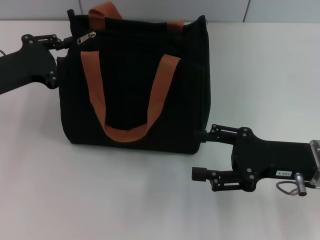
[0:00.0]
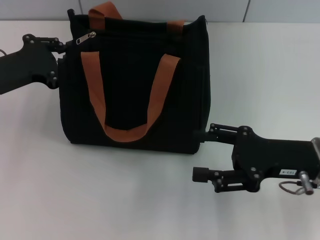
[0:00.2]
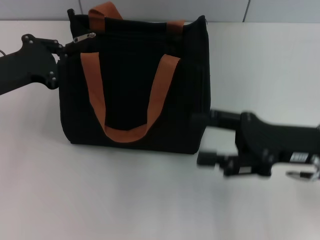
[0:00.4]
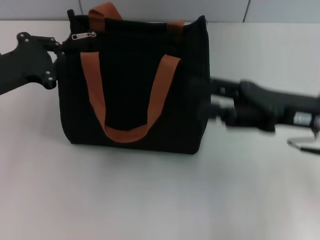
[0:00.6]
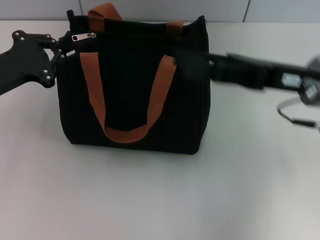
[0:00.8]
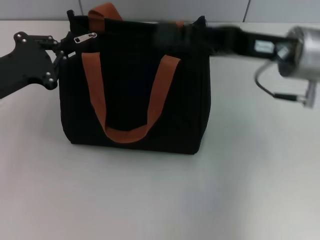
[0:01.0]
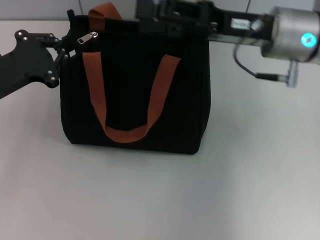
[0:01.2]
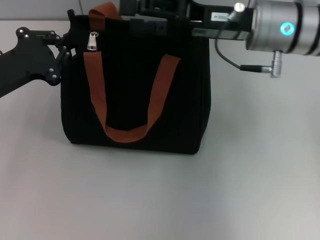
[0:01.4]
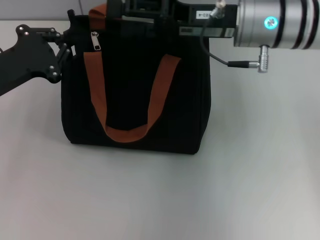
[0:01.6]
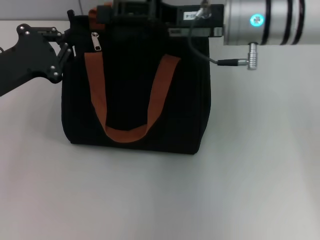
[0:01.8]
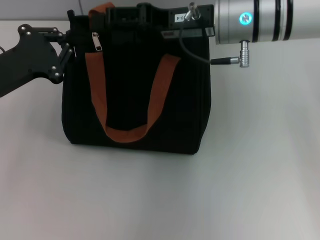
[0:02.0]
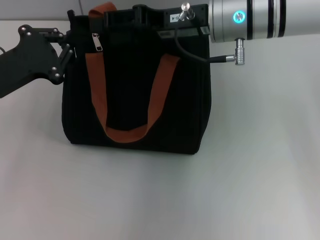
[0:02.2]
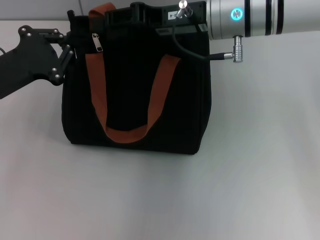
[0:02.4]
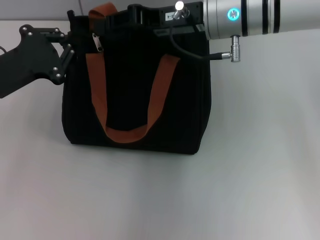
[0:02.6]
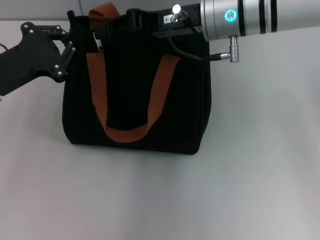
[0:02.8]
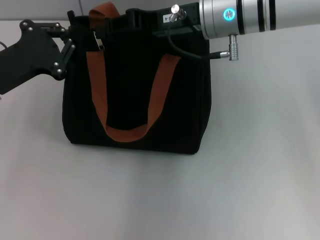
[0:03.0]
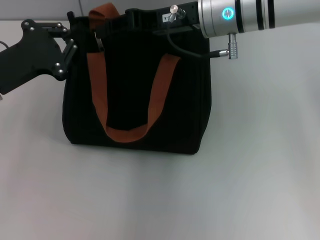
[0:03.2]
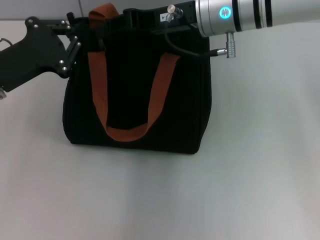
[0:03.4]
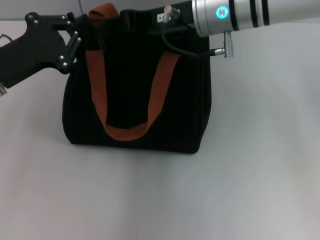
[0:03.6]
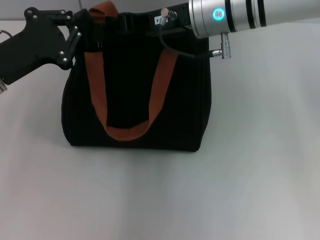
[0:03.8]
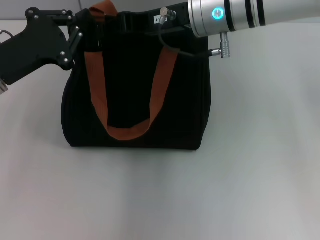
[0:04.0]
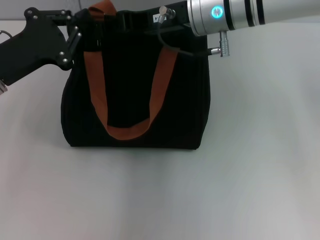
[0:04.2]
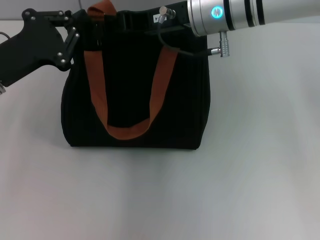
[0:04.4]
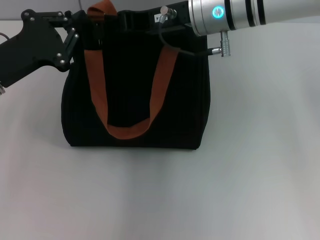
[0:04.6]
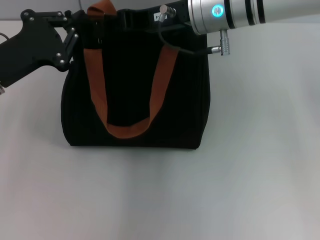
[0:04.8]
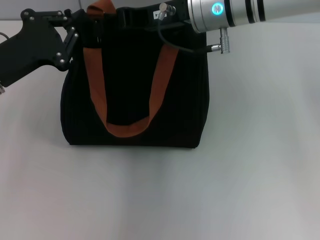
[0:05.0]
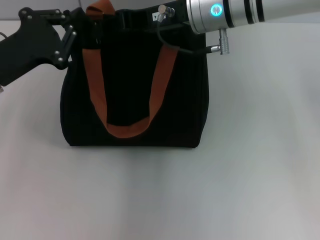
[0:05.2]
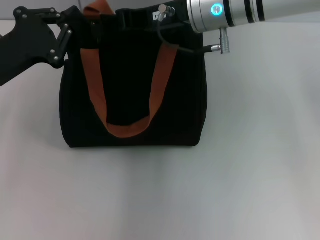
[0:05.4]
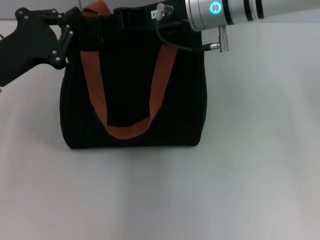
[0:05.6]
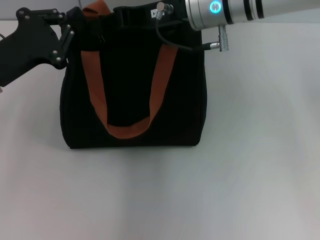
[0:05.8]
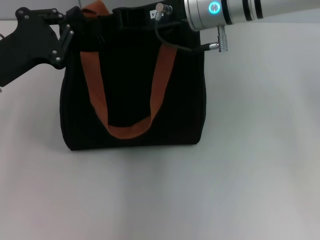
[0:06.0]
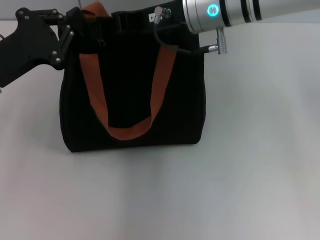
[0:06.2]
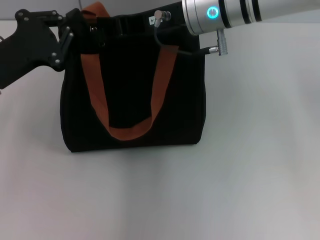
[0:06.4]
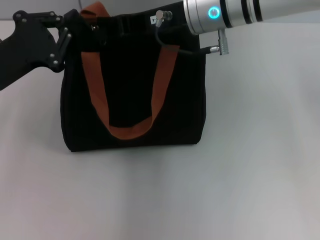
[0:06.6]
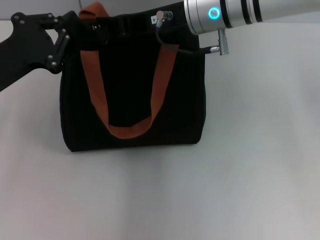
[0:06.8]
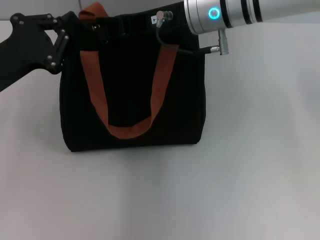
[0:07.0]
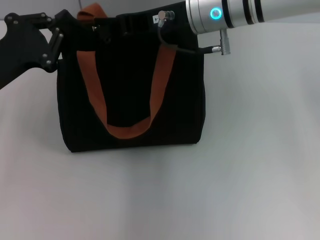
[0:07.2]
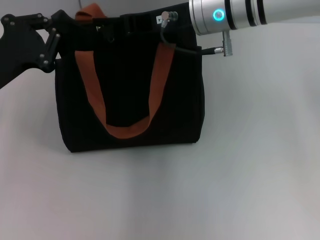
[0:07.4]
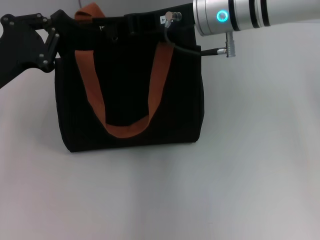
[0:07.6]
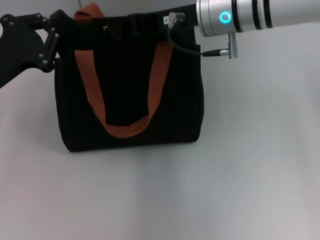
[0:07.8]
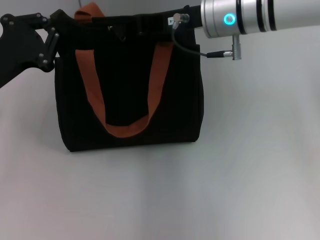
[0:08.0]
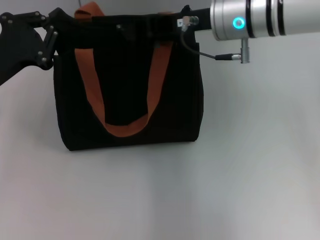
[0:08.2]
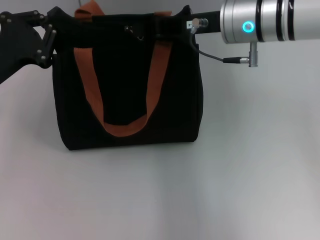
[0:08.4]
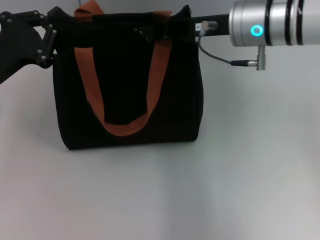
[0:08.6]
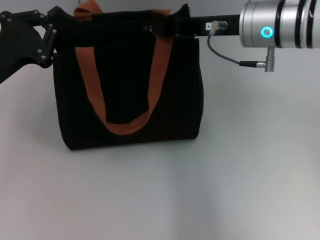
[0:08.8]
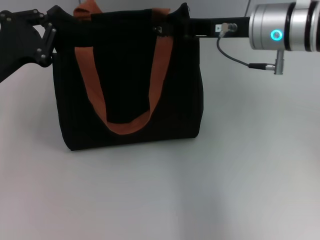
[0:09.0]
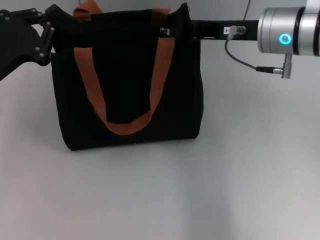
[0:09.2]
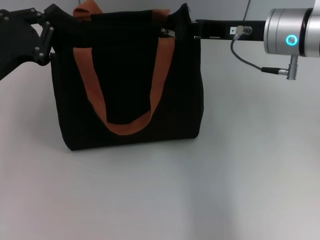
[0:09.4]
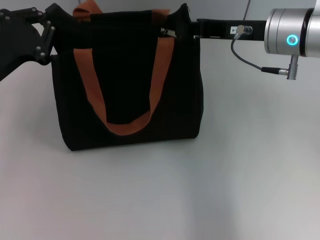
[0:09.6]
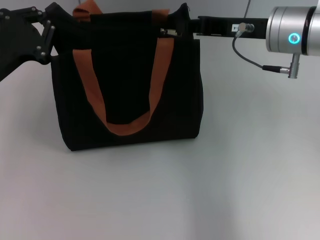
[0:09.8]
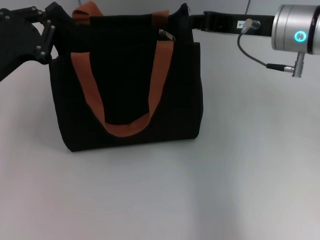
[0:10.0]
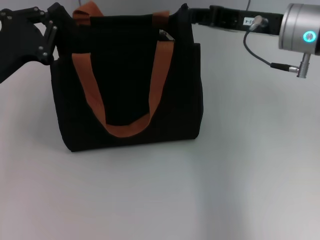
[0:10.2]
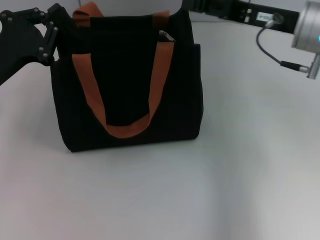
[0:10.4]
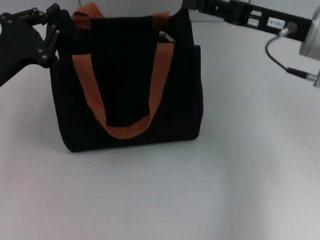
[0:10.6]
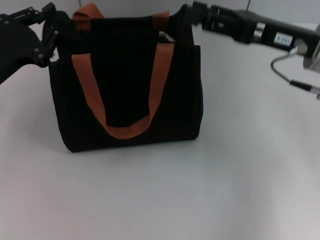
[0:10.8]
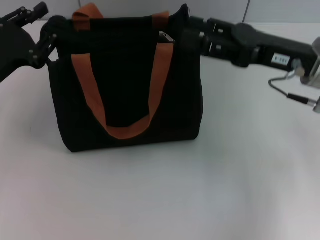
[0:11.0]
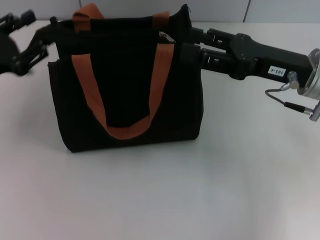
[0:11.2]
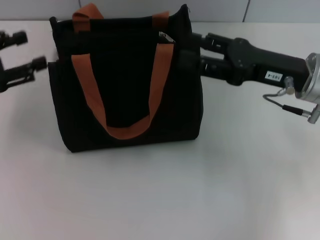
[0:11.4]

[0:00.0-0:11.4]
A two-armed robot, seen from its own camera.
Step, 0:00.0 to 0:09.8: Pull up the zipper with your right hand.
Step, 0:10.0 to 0:11.2: Grab the zipper with your left hand.
0:00.0 to 0:01.4: The left gripper closes up; the right gripper shifts some 20 cm forward, upward and to the left.
0:01.4 to 0:02.8: The right gripper heads to the left, covering about 5 cm, and closes.
0:02.8 to 0:04.2: The grippers make only small movements.
0:04.2 to 0:05.6: Neither gripper changes place.
0:05.6 to 0:07.2: The grippers stay close to where they were, moving slightly.
0:07.2 to 0:08.6: The right gripper moves to the right, approximately 5 cm.
0:08.6 to 0:10.0: The right gripper moves to the right, roughly 5 cm.
0:10.0 to 0:11.4: The right gripper shifts roughly 5 cm backward, and opens up; the left gripper moves to the left, roughly 5 cm, and opens its fingers.

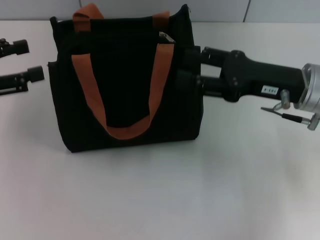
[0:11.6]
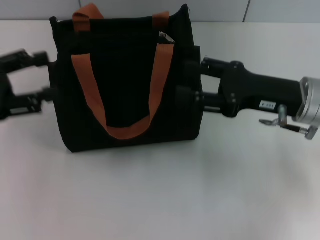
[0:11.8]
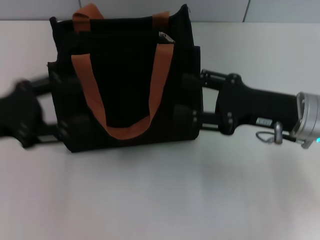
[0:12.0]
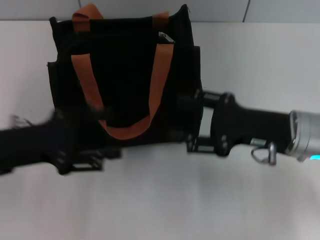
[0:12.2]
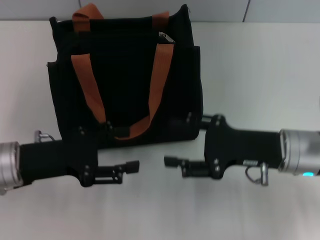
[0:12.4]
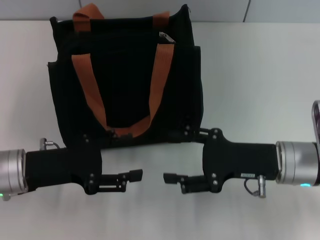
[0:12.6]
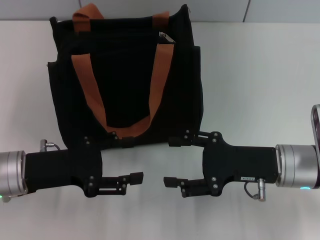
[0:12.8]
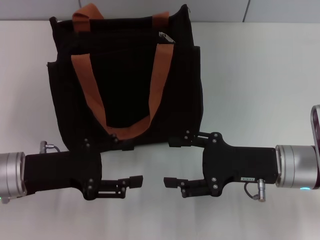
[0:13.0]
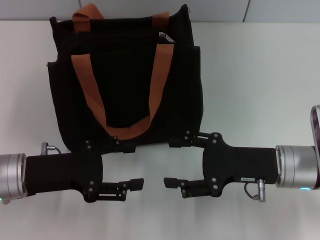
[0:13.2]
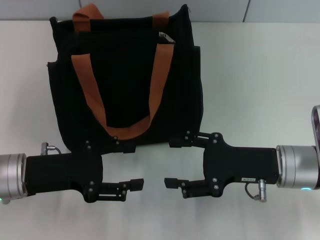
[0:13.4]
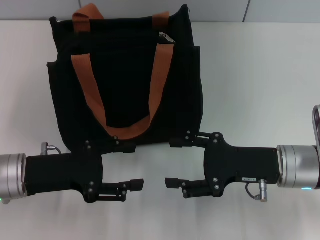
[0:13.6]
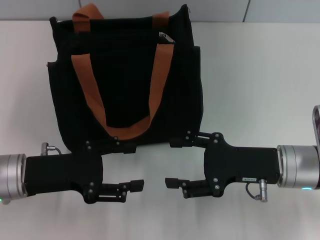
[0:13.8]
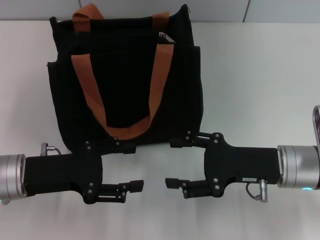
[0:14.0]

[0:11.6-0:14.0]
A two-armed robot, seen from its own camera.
0:11.6 to 0:12.8: The right gripper heads downward and backward, covering some 10 cm. The left gripper is displaced to the right and downward by roughly 15 cm.
0:12.8 to 0:14.0: Neither gripper changes place.

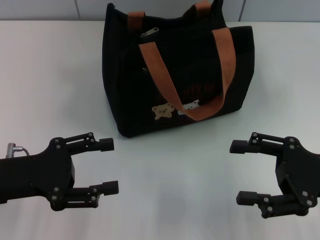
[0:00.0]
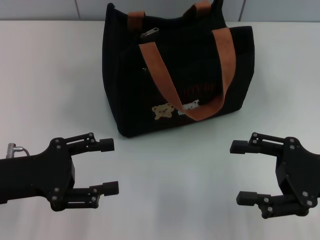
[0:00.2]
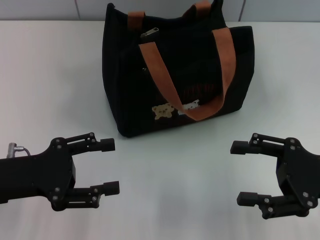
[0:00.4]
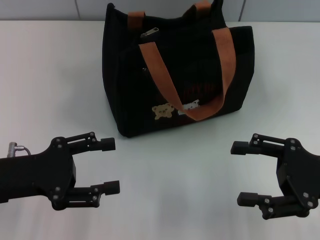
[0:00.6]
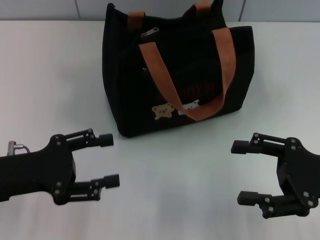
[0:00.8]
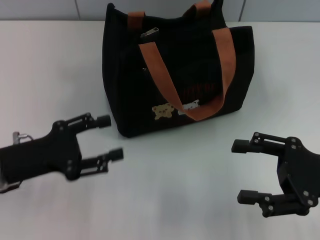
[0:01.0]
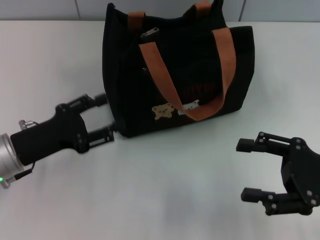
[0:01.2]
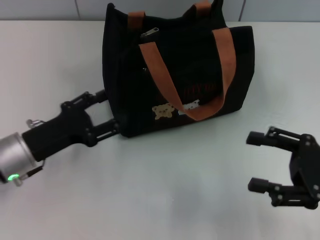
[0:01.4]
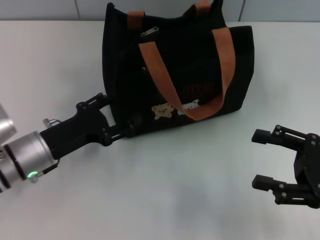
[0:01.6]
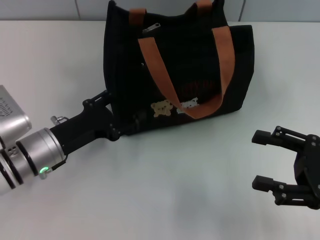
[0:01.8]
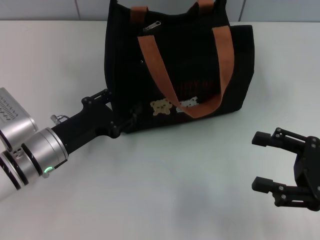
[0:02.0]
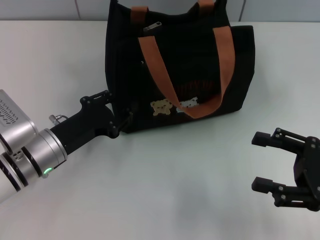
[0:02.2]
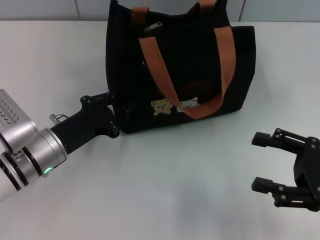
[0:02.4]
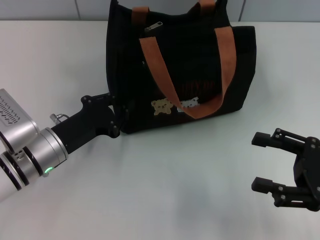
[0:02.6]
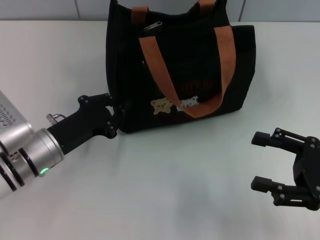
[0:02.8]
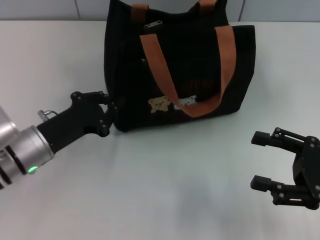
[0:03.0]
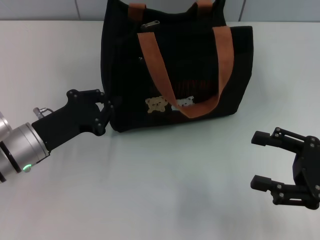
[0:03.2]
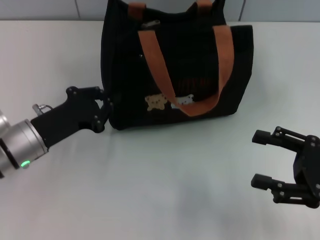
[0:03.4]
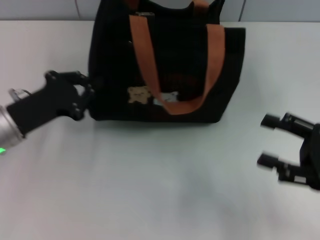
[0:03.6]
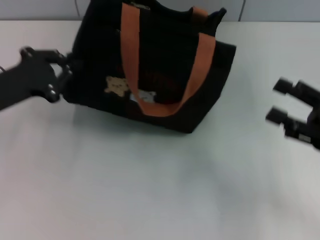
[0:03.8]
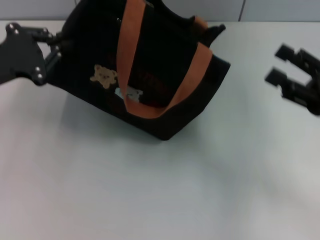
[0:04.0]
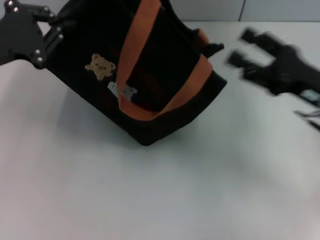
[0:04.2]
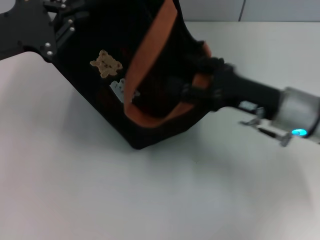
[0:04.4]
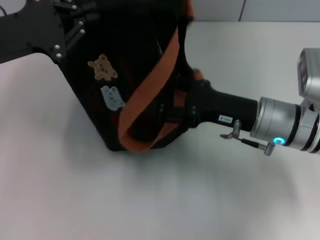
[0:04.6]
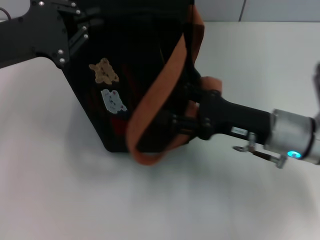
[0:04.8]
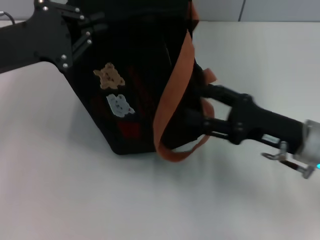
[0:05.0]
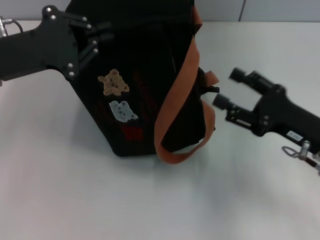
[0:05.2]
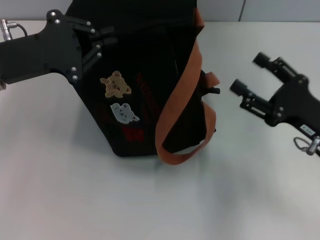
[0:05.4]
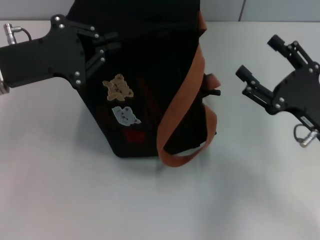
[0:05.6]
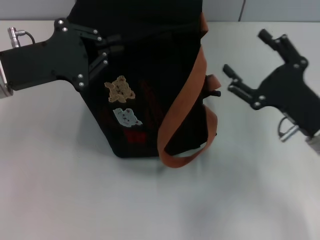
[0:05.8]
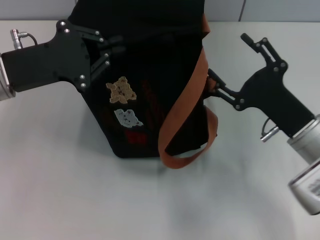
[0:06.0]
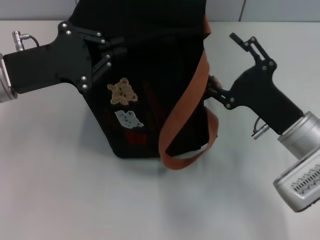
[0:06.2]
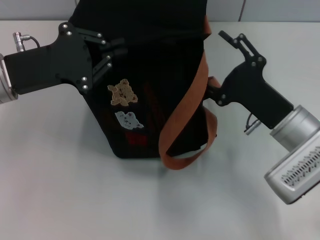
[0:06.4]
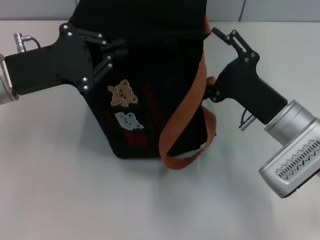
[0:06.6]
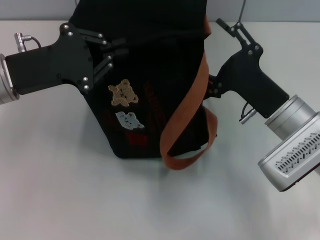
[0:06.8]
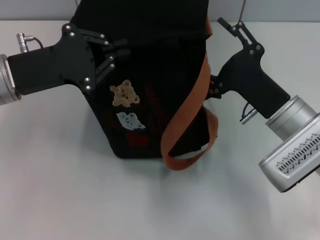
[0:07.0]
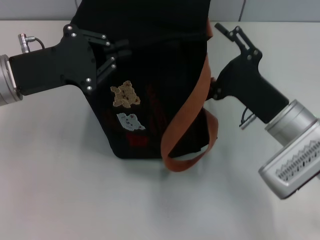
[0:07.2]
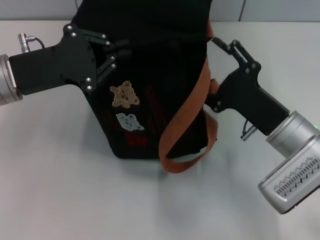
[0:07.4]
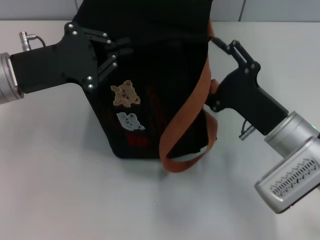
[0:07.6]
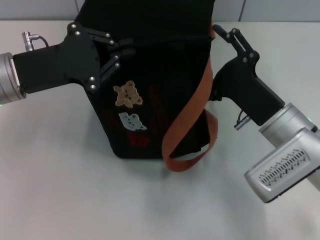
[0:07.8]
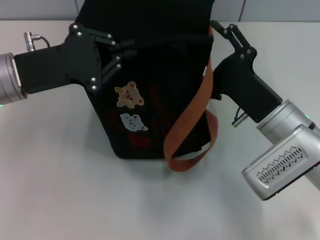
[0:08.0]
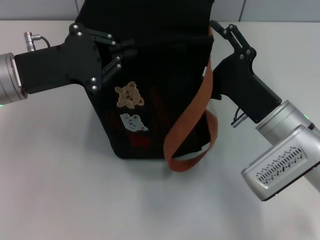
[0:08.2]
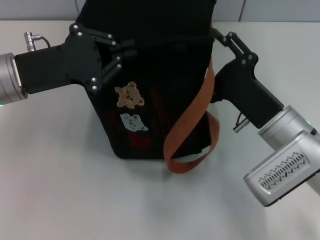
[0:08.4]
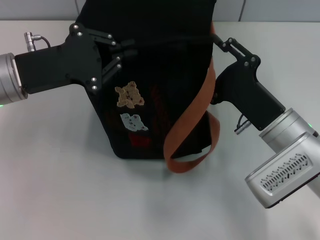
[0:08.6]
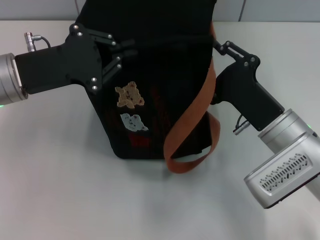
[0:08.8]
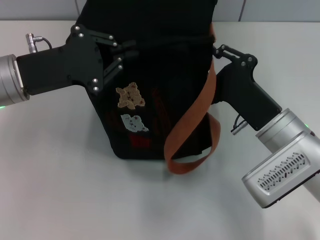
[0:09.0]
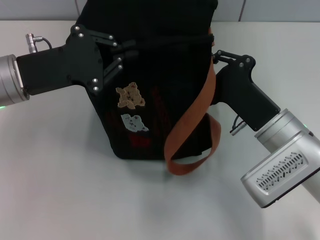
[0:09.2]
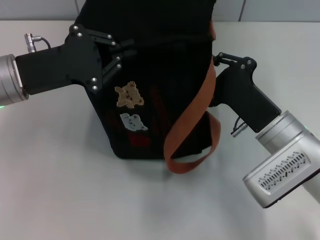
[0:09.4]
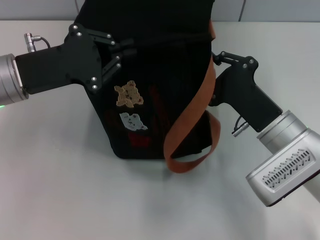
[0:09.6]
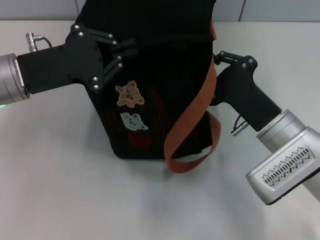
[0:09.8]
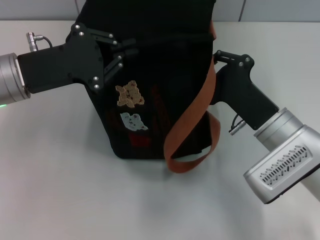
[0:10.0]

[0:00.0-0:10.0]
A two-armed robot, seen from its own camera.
0:00.0 to 0:01.4: The left gripper changes place by about 5 cm.
0:01.4 to 0:02.8: The left gripper closes up.
0:02.8 to 0:04.2: The left gripper travels upward and to the left by about 15 cm. The right gripper is displaced forward by some 10 cm.
0:04.2 to 0:05.8: The right gripper moves roughly 10 cm to the left and comes back.
0:05.8 to 0:07.2: The right gripper travels to the left by roughly 5 cm.
0:07.2 to 0:08.6: The grippers stay close to where they were, moving slightly.
0:08.6 to 0:10.0: The right gripper closes.
